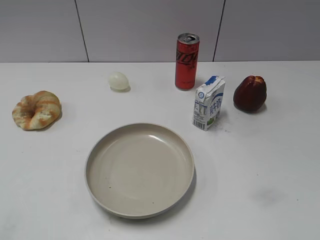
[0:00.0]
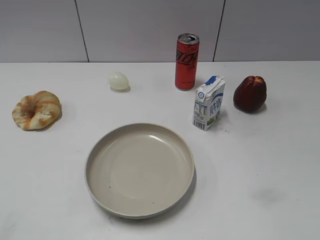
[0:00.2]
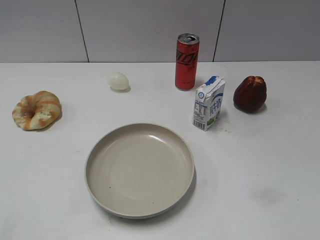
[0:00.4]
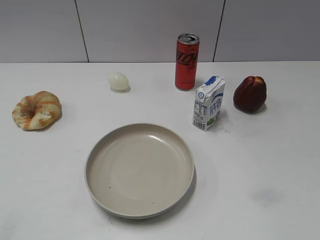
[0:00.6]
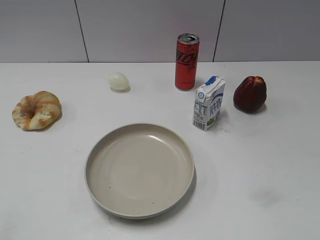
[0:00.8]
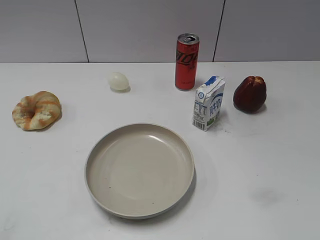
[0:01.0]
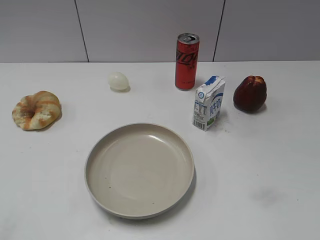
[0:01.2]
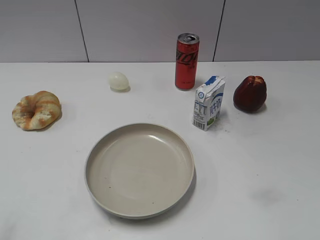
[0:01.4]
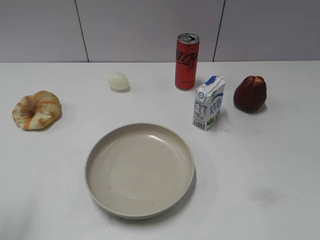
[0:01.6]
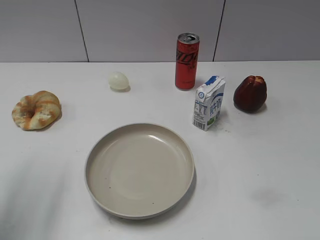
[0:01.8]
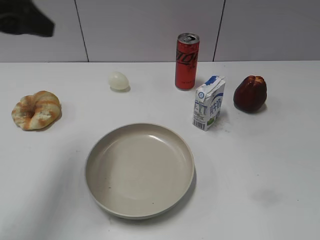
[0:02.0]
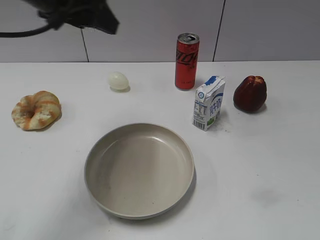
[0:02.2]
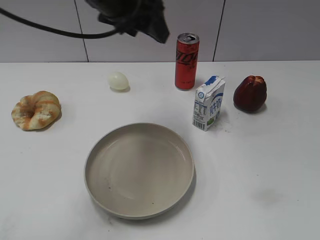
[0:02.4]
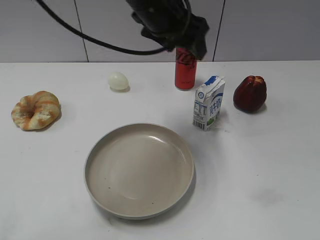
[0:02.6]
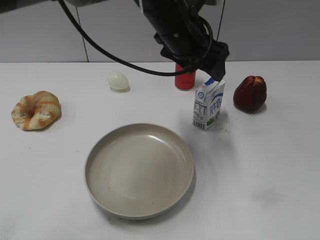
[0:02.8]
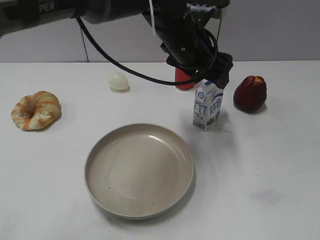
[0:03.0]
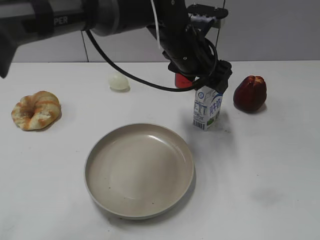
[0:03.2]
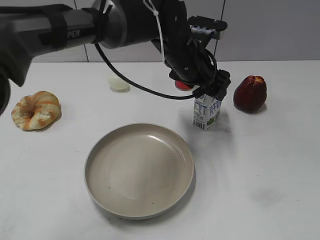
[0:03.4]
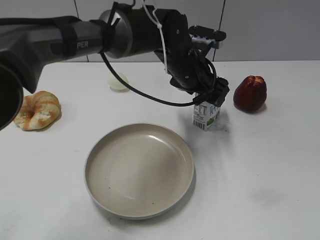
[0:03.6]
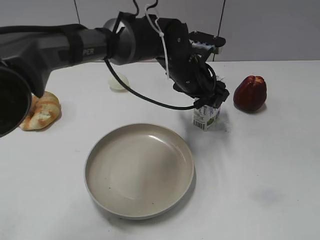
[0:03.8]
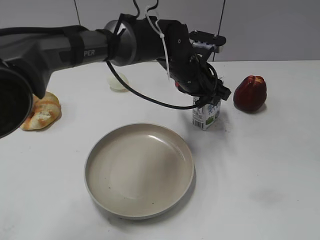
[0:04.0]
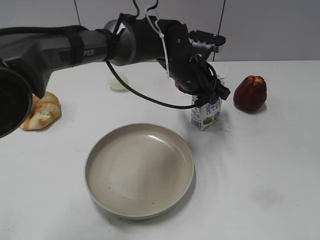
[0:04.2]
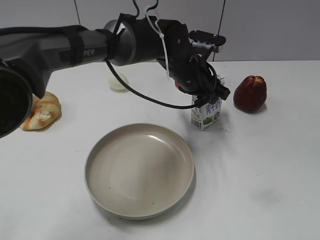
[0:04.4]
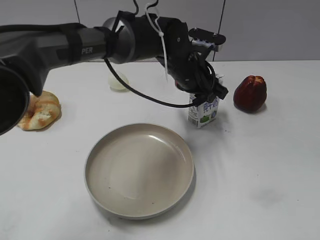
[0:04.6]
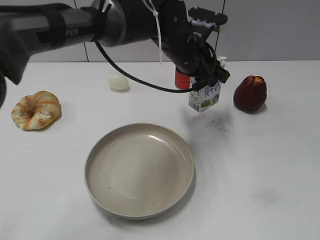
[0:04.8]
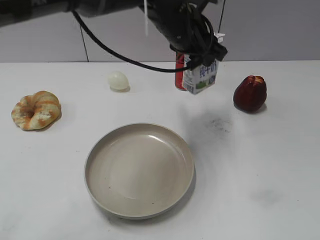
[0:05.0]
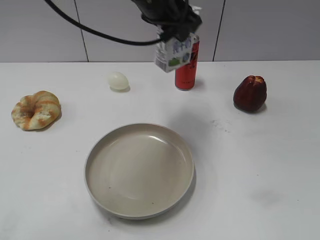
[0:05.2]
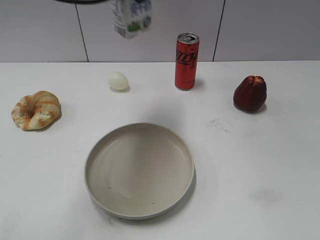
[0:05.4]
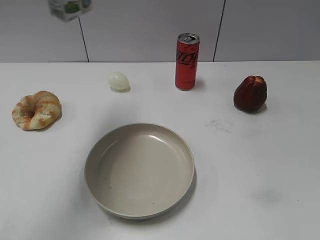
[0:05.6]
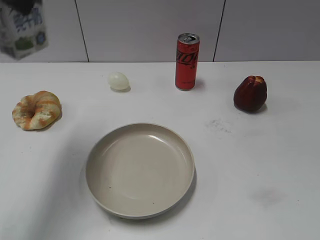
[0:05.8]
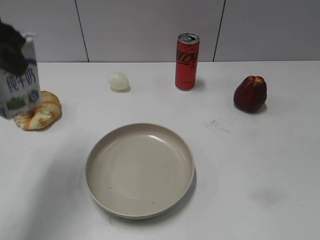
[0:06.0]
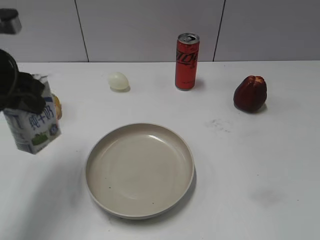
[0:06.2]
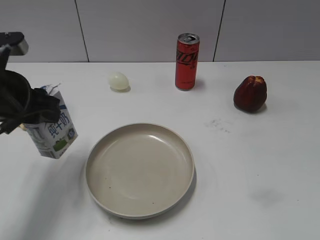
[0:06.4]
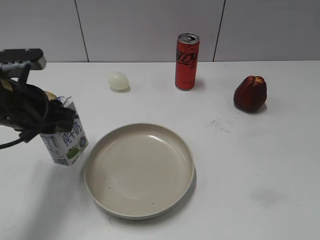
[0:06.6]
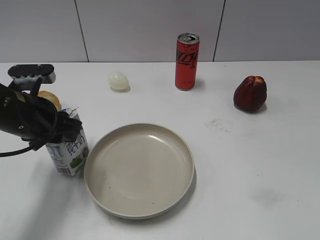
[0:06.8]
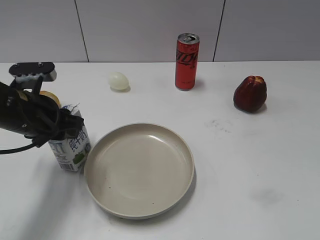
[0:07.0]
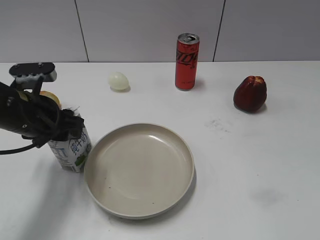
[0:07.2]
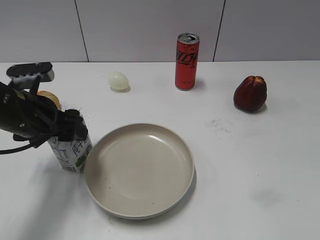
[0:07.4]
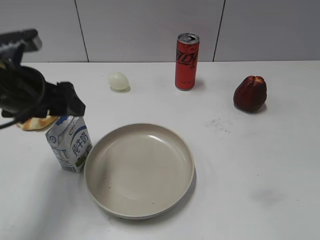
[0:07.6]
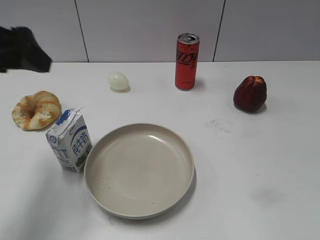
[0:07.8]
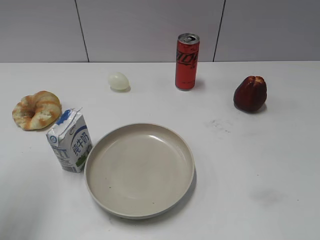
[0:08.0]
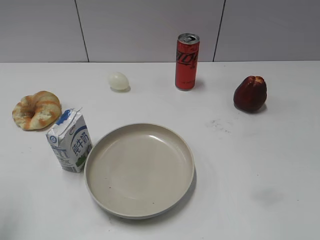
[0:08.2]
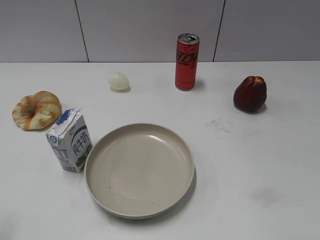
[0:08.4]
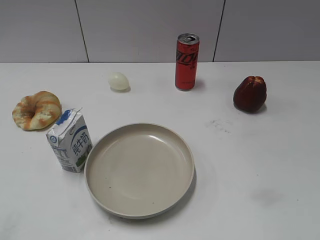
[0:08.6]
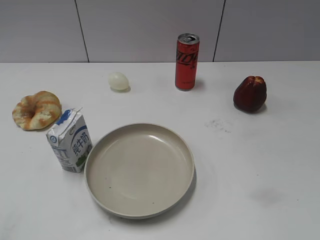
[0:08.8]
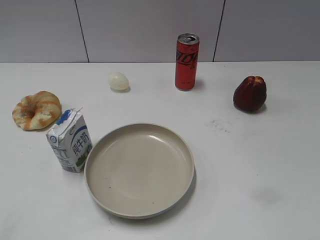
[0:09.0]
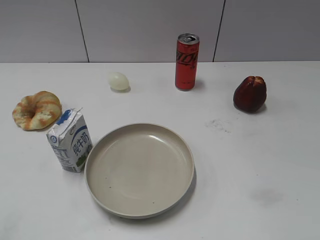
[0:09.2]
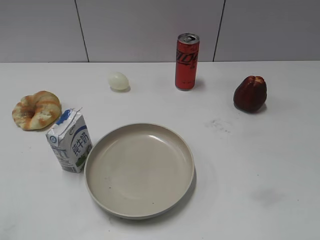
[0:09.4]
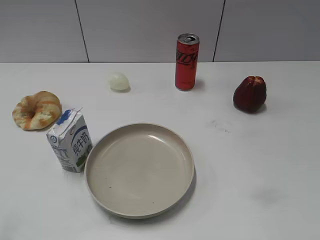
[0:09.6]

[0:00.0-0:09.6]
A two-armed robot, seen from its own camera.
Step, 0:00.0 to 0:04.6: Grasp the milk with left gripper.
Step, 0:04.8 to 0:07.6: Place the milk on the table with left gripper.
0:01.6 to 0:03.2: The left gripper moves to the right and forward, about 40 cm.
0:03.2 to 0:04.8: The left gripper closes up.
0:04.8 to 0:06.4: The left gripper goes roughly 30 cm to the left and backward.
0:06.4 to 0:08.0: The left gripper travels upward and to the left by roughly 15 cm, and opens up.
0:08.0 to 0:09.6: The left gripper shifts some 20 cm backward.

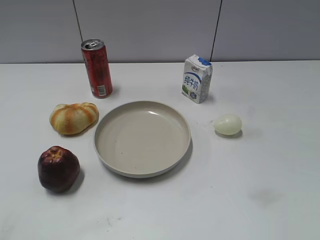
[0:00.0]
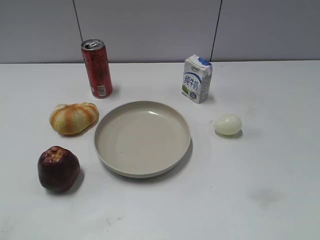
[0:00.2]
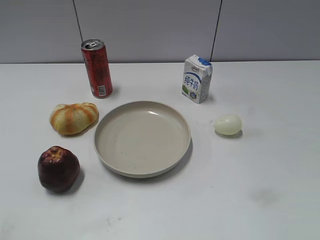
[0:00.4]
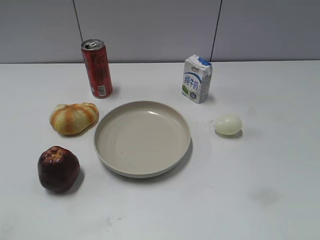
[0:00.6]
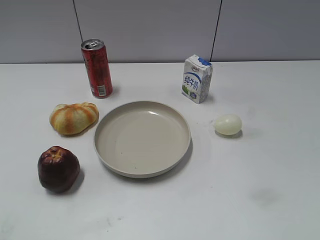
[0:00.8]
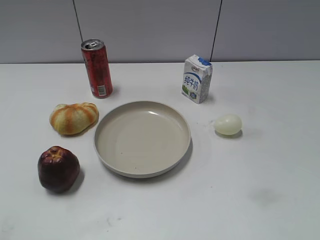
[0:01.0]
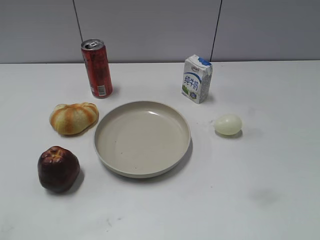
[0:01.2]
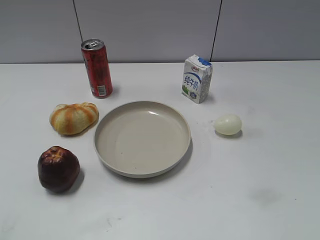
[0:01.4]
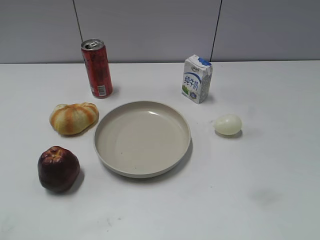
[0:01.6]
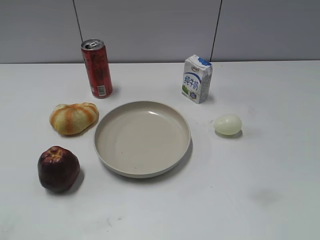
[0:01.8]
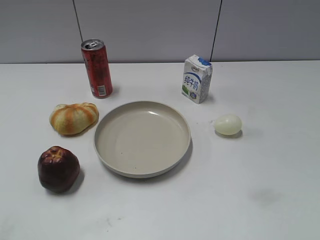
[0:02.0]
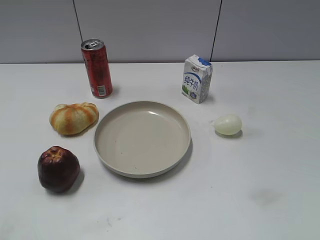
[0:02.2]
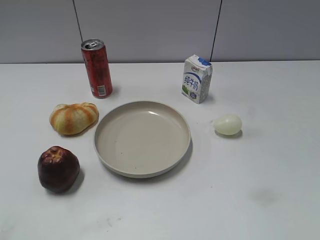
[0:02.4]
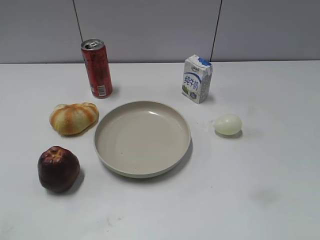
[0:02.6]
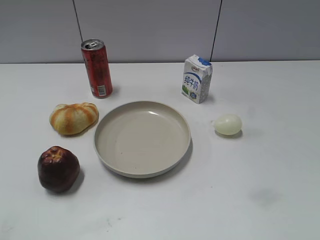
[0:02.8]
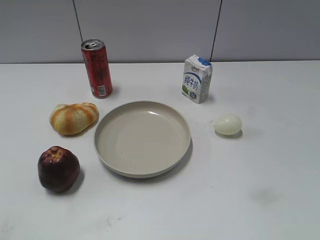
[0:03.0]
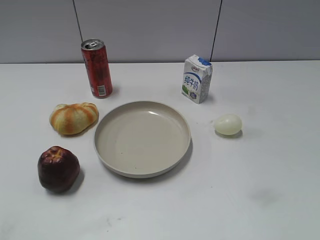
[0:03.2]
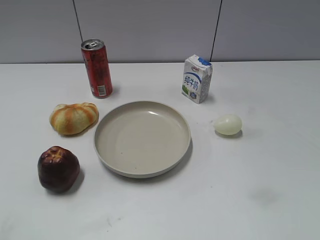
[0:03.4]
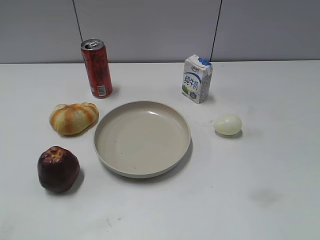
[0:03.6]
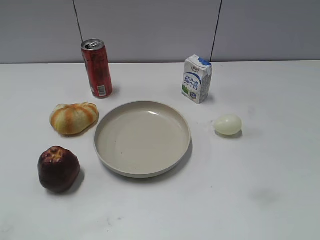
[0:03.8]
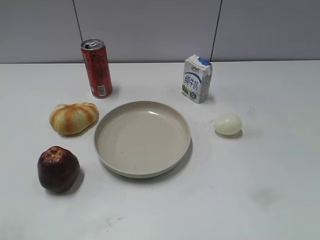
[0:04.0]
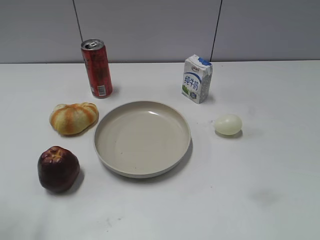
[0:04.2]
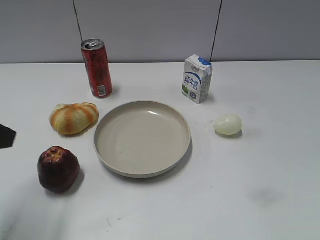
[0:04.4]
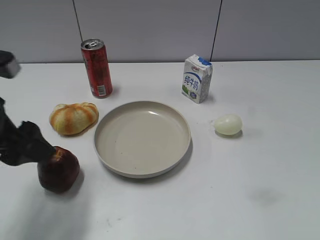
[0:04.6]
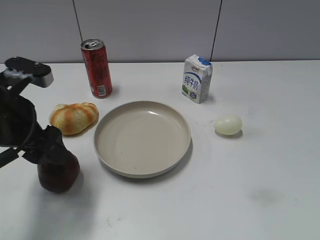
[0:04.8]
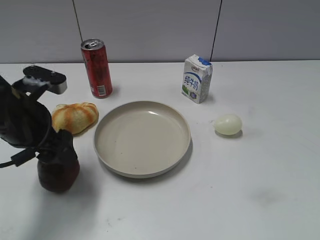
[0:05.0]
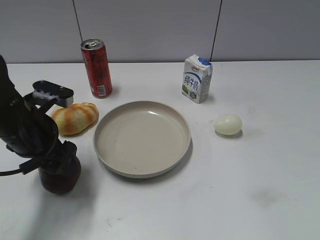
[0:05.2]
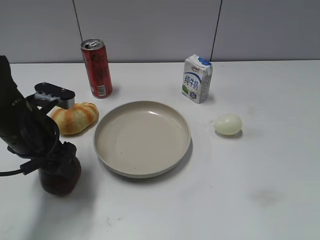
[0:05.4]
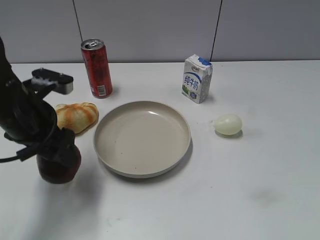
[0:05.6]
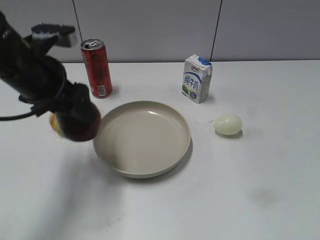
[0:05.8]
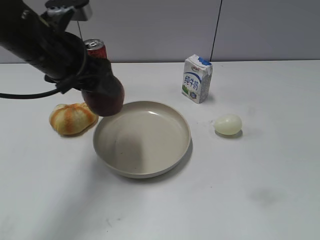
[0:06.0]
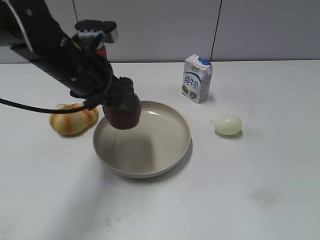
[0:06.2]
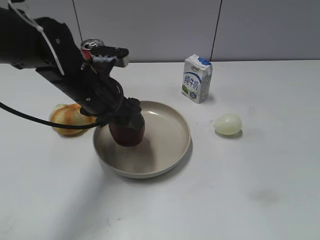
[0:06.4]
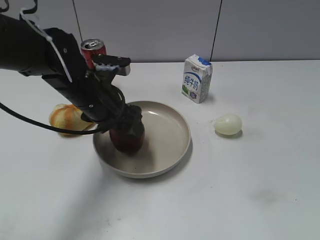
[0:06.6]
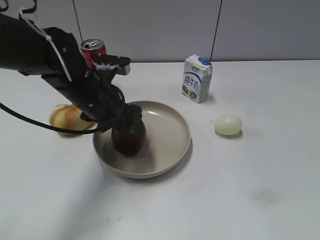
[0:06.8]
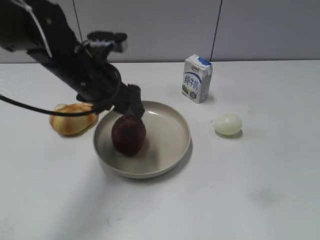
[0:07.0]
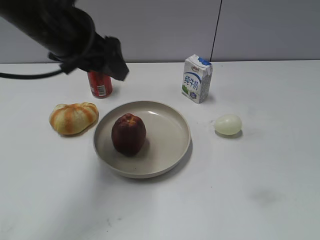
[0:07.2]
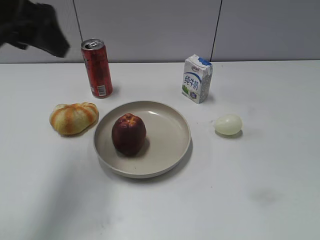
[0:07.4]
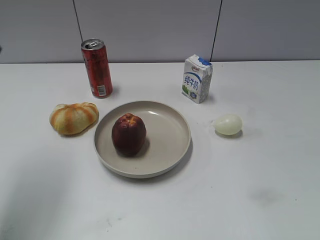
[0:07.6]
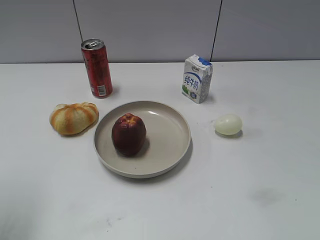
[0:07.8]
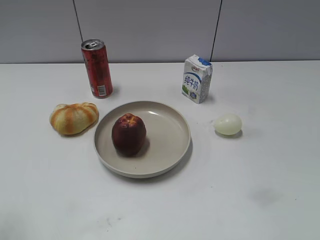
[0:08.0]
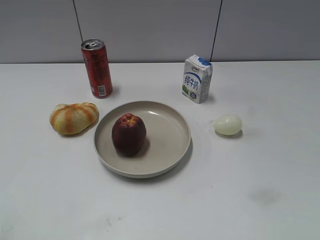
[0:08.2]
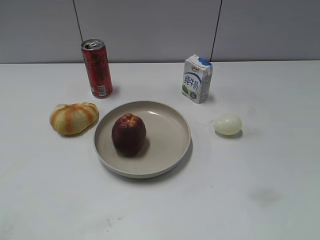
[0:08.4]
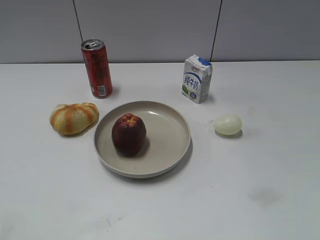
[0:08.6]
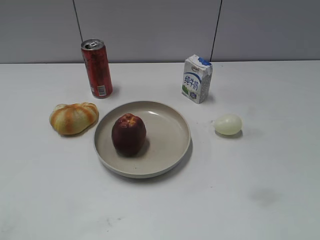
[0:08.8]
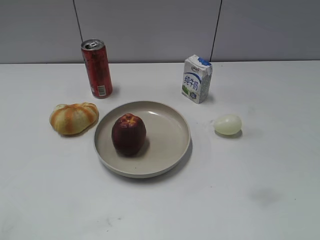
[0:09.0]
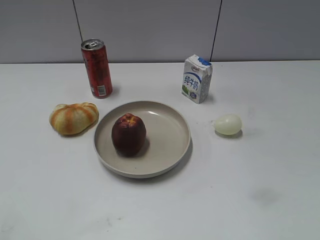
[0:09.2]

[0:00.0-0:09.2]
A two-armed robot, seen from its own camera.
Step, 0:01.2 to 0:05.2: Grasp the apple with left gripper.
Step, 0:05.6 to 0:07.0: Place the apple on the plate with left gripper.
0:01.6 to 0:03.0: Both grippers stay about where they are.
0:03.0 to 0:04.6: The left gripper shifts about 20 cm forward and to the right.
0:04.6 to 0:06.2: The left gripper moves to the right and forward, some 15 cm.
0:06.2 to 0:07.6: The left gripper heads to the left, upward and backward, covering about 20 cm.
0:07.6 to 0:09.2: The left gripper travels backward by about 25 cm, and closes.

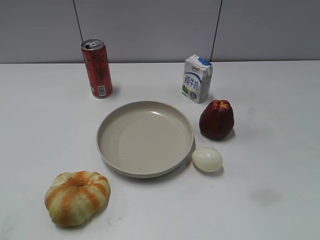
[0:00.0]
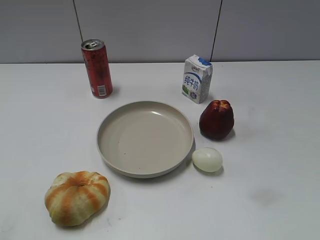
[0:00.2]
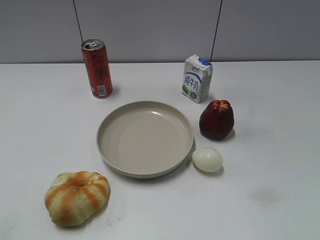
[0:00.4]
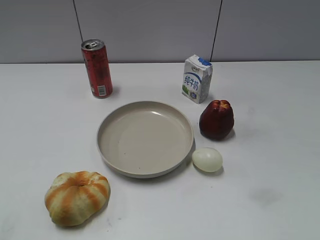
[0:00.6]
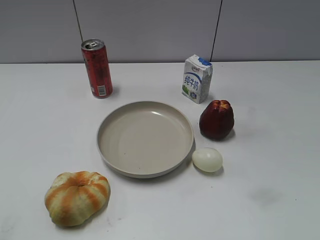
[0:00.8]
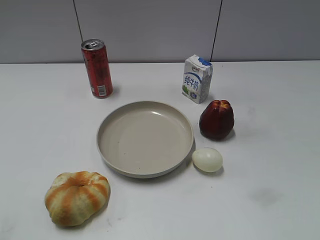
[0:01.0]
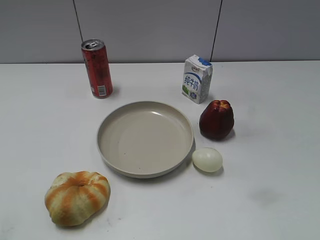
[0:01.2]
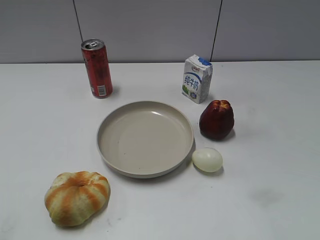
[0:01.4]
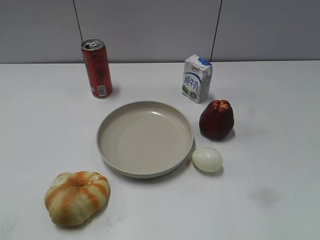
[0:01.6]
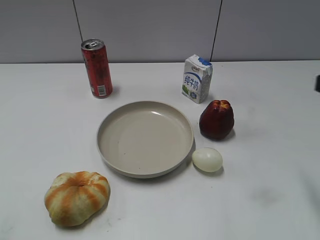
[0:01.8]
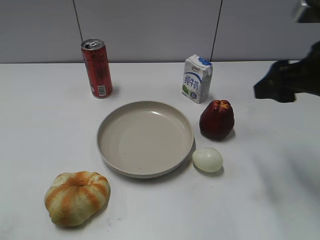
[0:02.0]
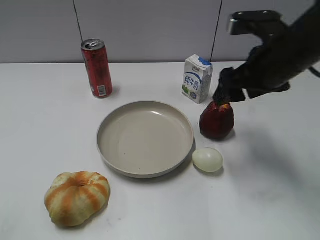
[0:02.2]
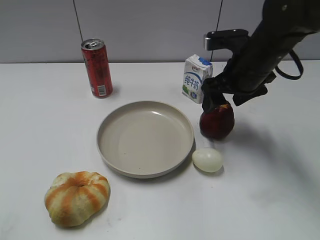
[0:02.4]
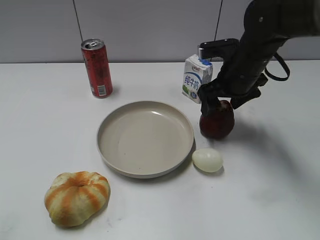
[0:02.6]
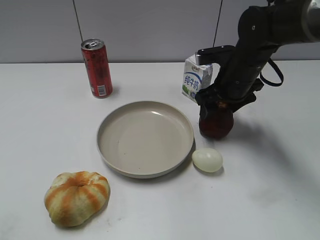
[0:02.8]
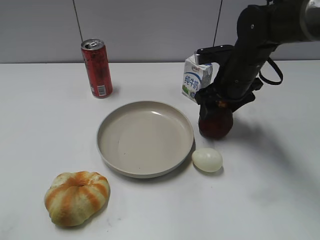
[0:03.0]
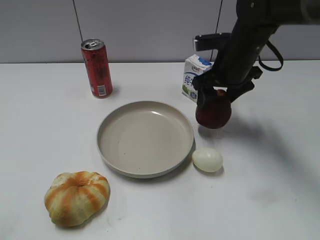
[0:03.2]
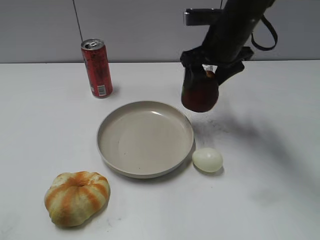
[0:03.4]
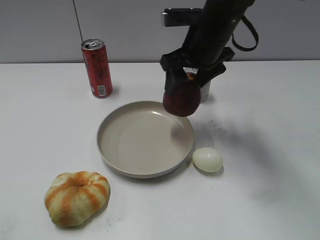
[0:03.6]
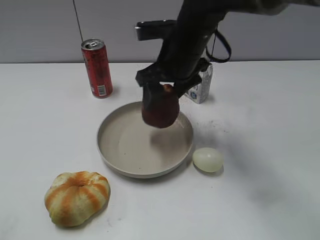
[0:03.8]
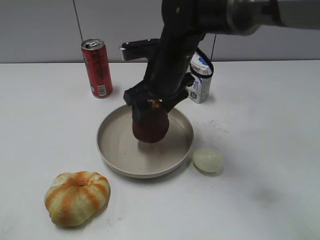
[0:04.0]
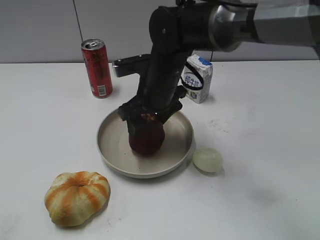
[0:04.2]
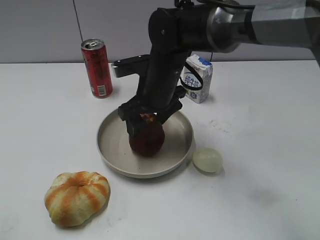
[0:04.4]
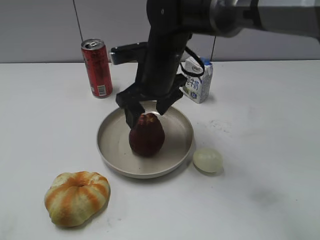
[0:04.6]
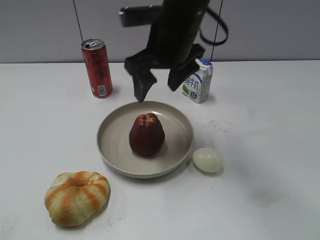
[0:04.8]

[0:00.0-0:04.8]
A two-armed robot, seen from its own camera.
Step, 0:01.0 to 0:02.8: Grasp the apple with right gripper.
Step, 0:03.0 to 0:04.6: Place the apple on the plate with right gripper.
0:01.6 to 0:03.2: The right gripper goes about 35 cm forward, to the left and downward, and opens its fingers.
0:03.2 to 0:04.8: The right gripper goes approximately 15 cm to the left and upward, and opens its fingers.
